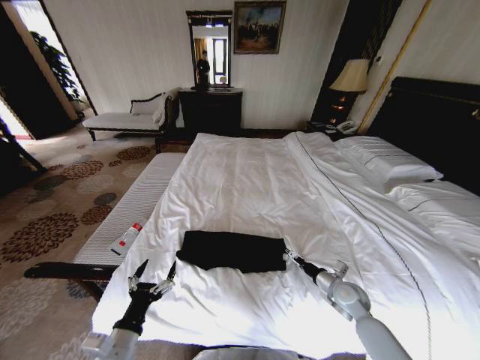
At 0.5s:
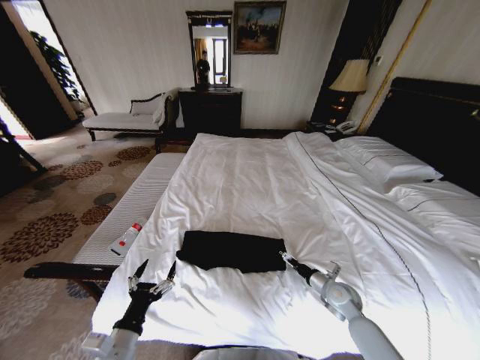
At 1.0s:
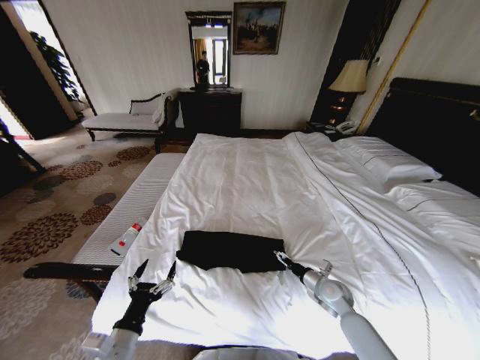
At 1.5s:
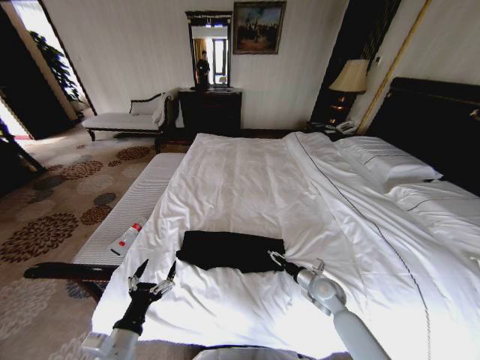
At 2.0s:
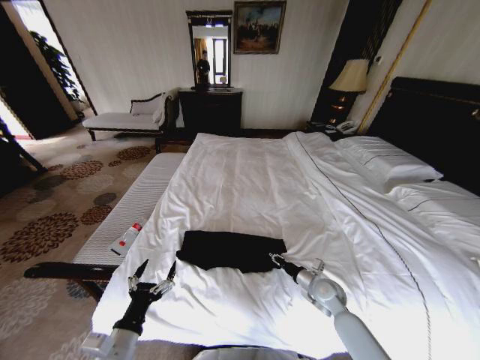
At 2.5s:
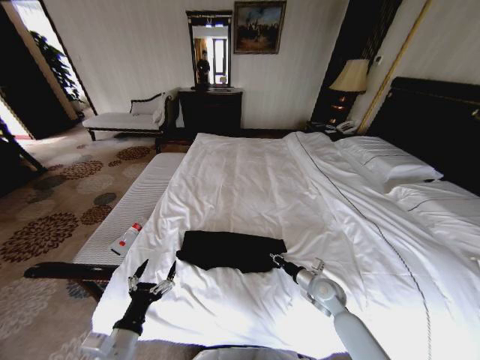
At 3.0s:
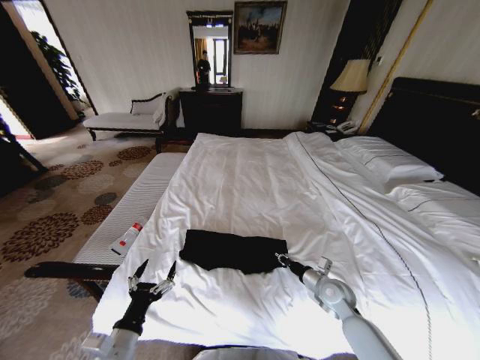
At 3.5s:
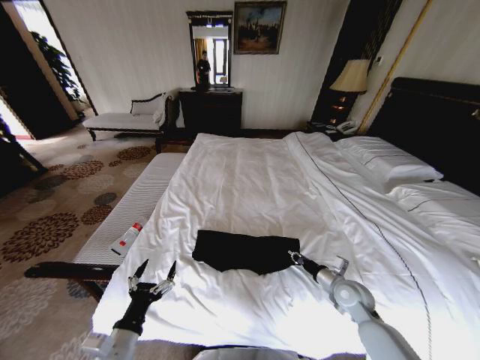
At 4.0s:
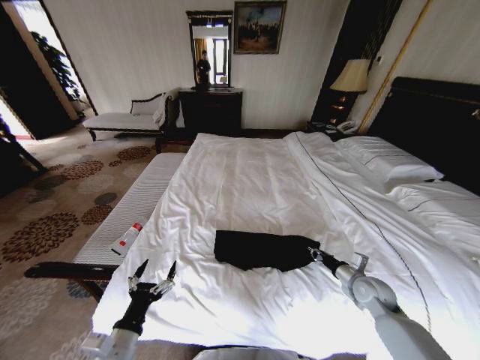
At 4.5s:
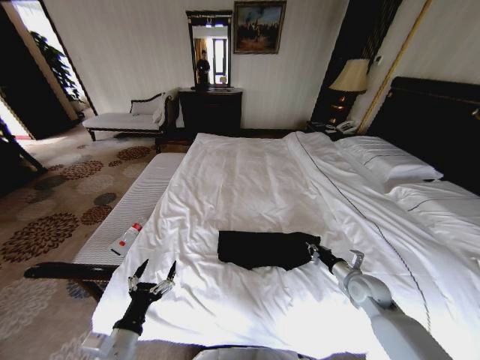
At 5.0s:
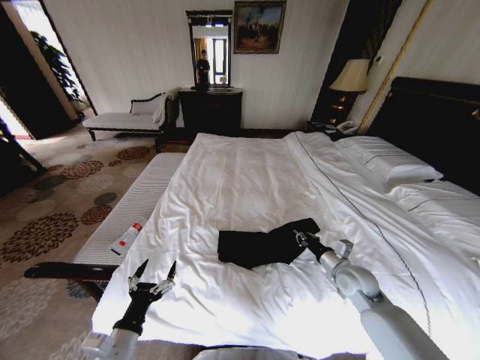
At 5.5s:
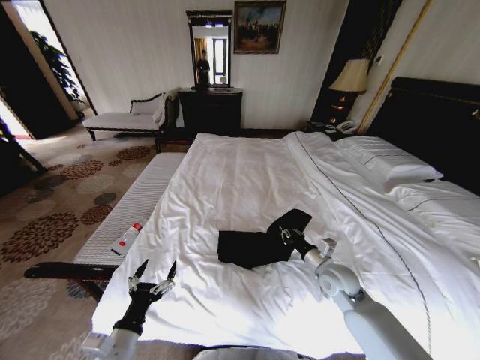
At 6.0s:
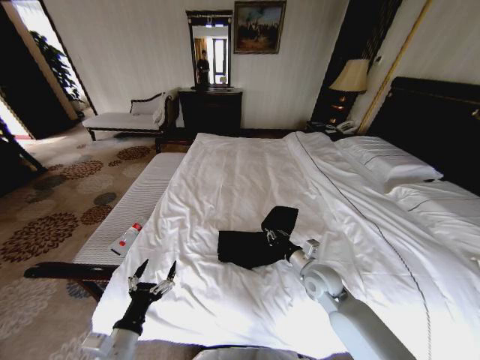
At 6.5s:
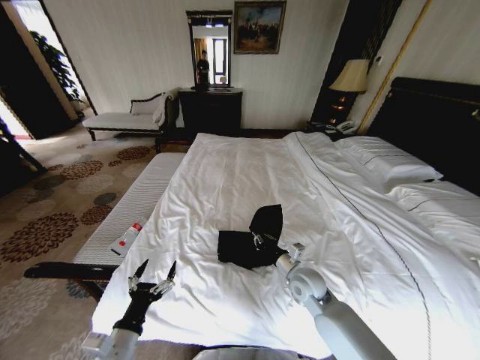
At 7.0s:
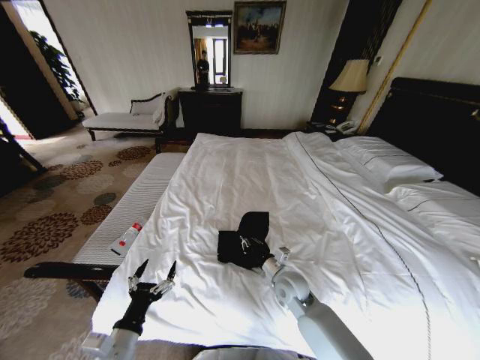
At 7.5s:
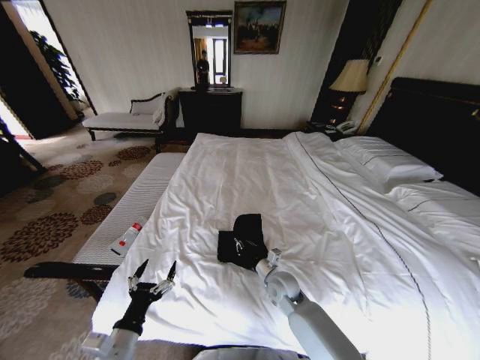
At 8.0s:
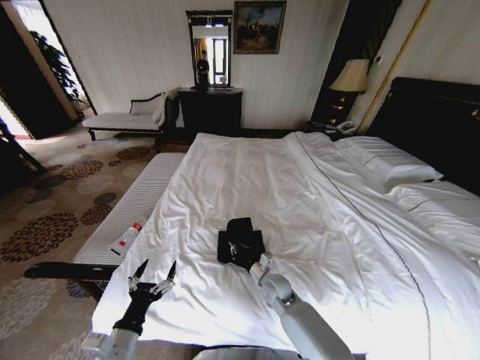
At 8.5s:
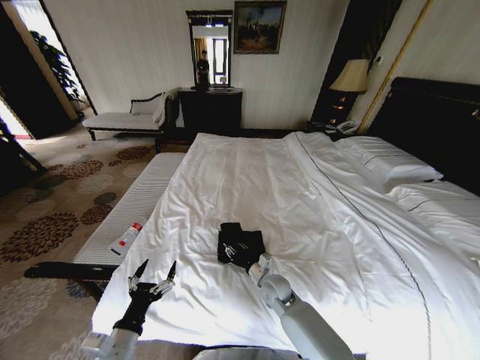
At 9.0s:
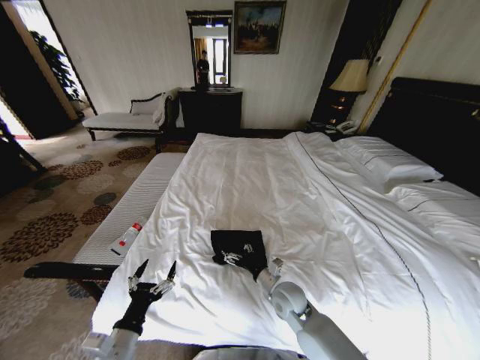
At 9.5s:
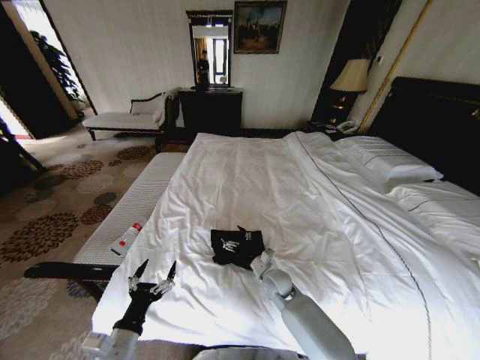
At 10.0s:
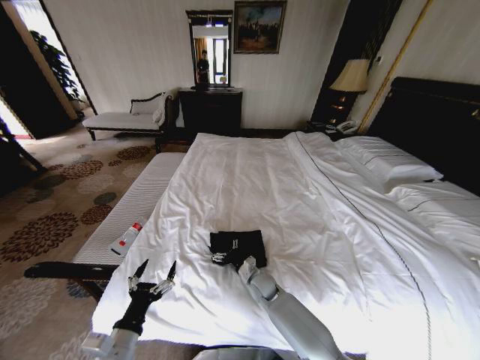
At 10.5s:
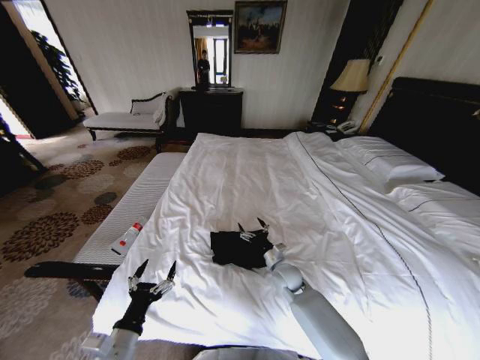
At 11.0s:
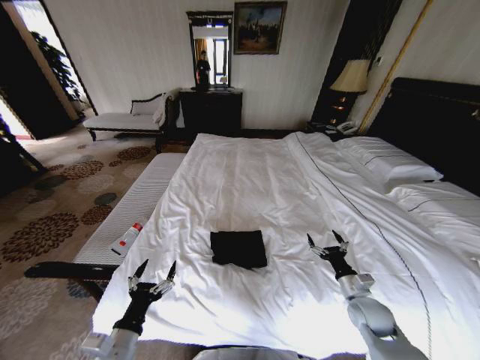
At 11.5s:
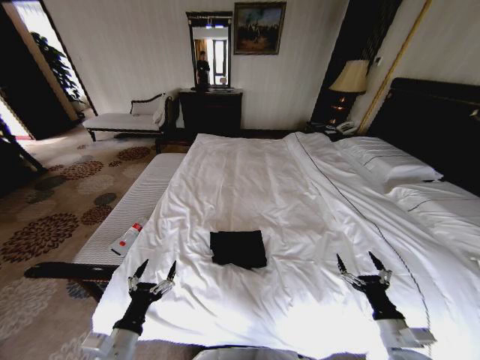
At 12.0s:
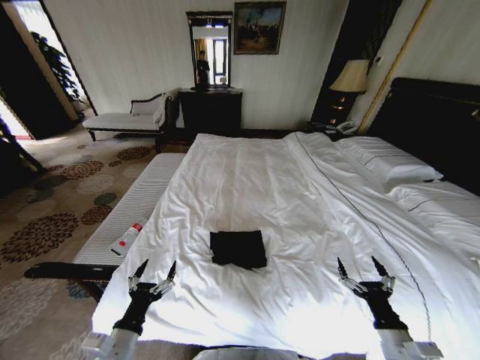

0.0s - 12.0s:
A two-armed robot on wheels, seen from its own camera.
Task of the whole recording: Fold the clothes on the bed.
0.0s - 2.0s: The right gripper travels to the left by about 5 cm, and closes.
2.0s - 4.0s: The right gripper travels to the right and upward by roughly 10 cm.
4.0s - 6.0s: The right gripper shifts some 15 cm to the left.
6.0s - 8.0s: The right gripper shifts roughly 15 cm to the left and downward.
8.0s - 10.0s: The right gripper shifts by approximately 5 cm, and opens its fingers.
10.0s - 12.0s: The right gripper is displaced to the right and backward by approximately 35 cm.

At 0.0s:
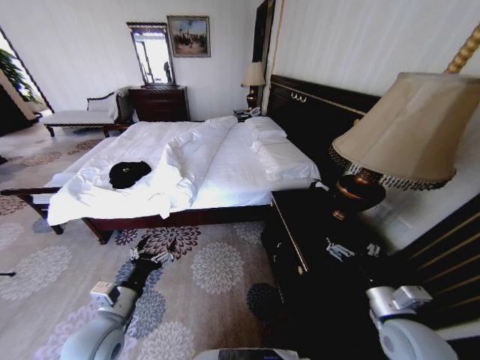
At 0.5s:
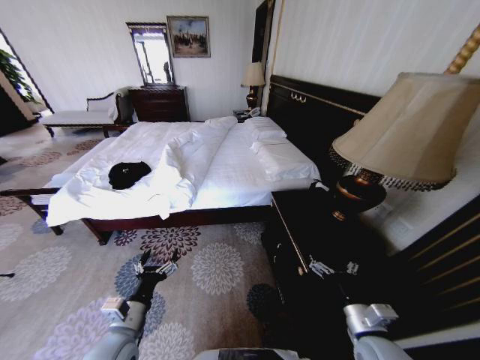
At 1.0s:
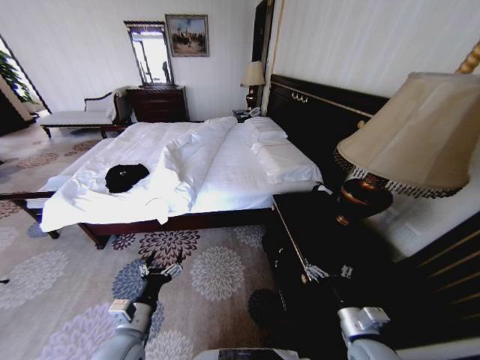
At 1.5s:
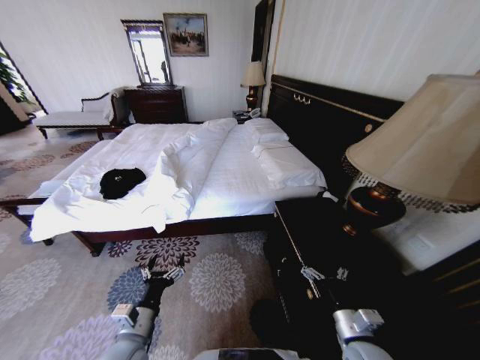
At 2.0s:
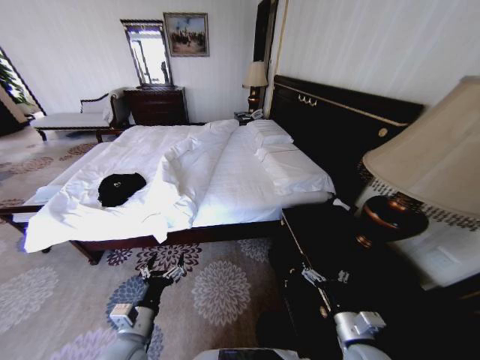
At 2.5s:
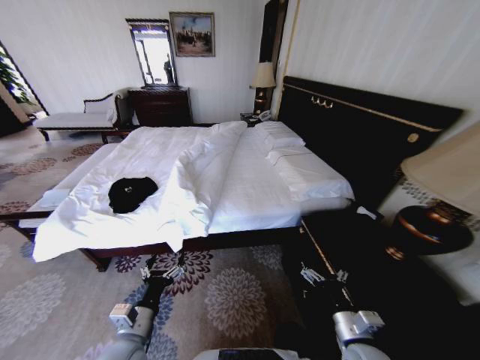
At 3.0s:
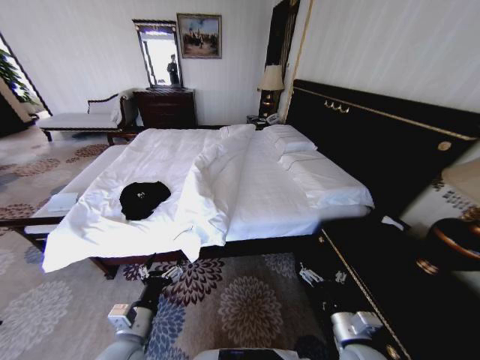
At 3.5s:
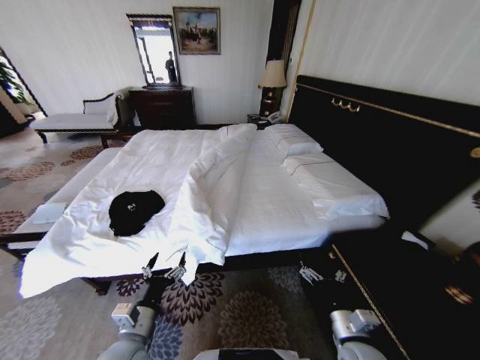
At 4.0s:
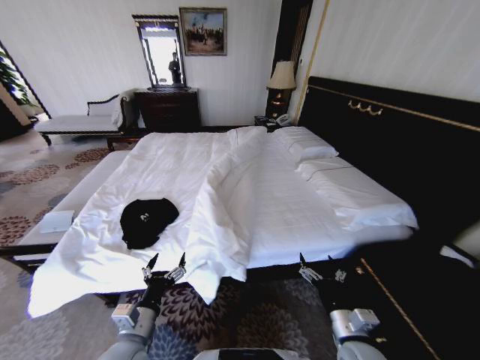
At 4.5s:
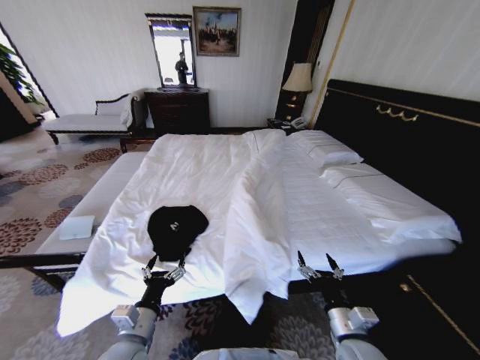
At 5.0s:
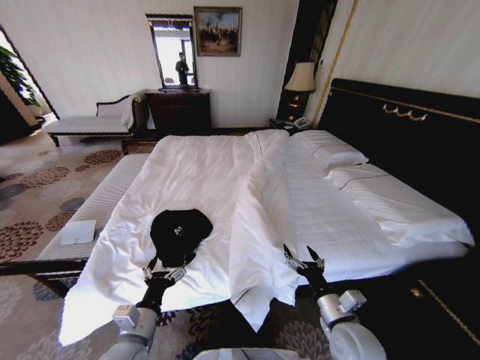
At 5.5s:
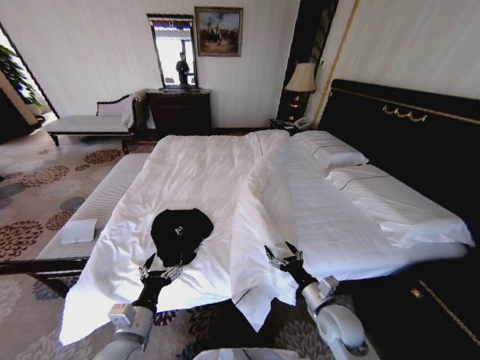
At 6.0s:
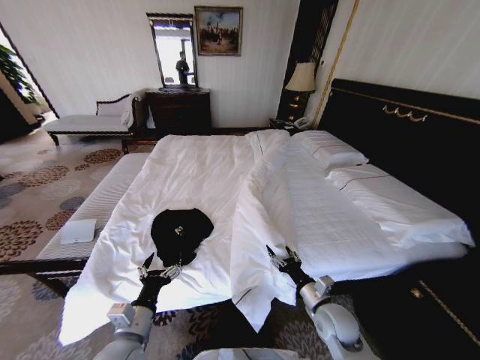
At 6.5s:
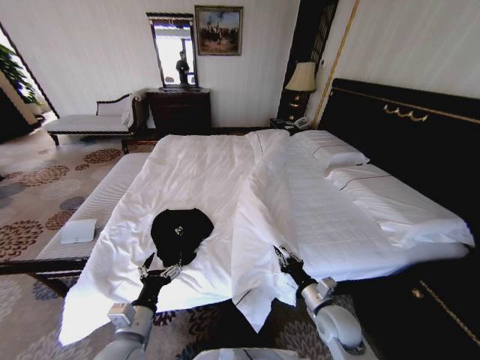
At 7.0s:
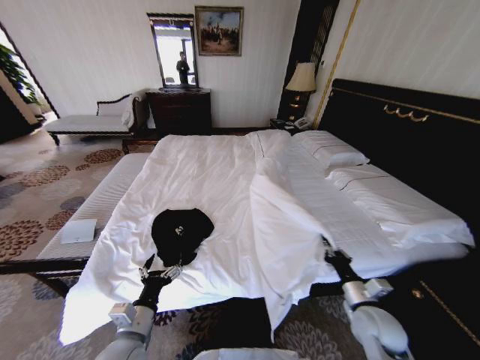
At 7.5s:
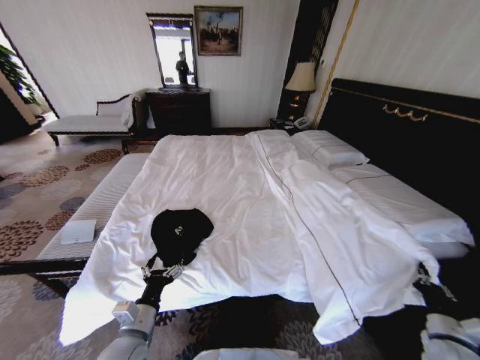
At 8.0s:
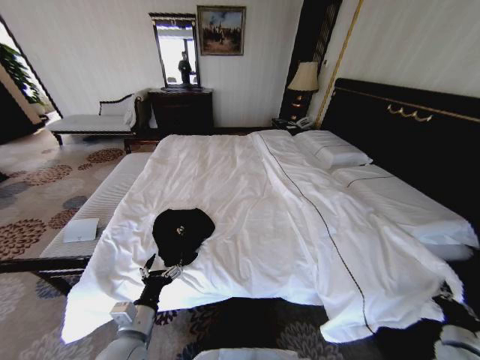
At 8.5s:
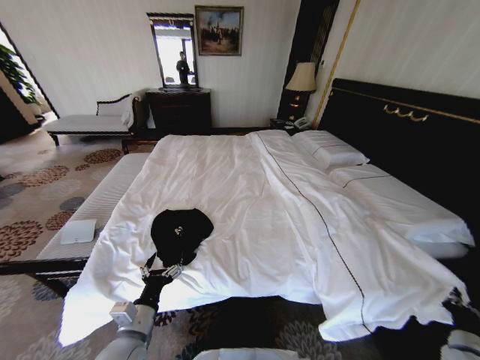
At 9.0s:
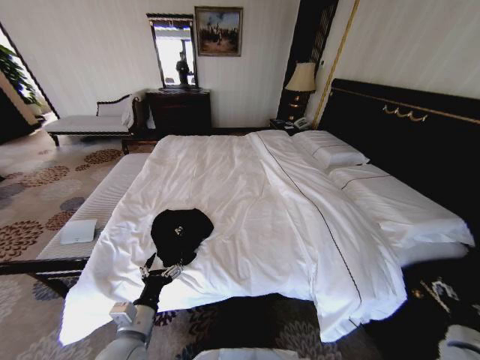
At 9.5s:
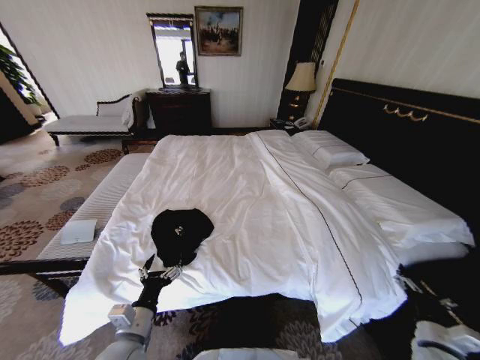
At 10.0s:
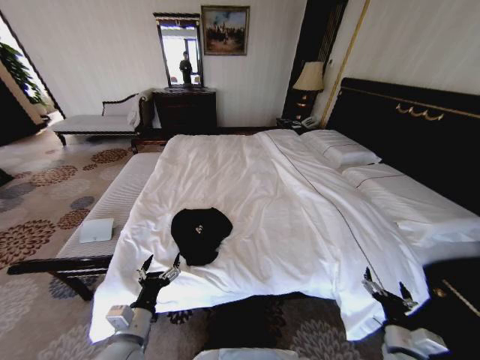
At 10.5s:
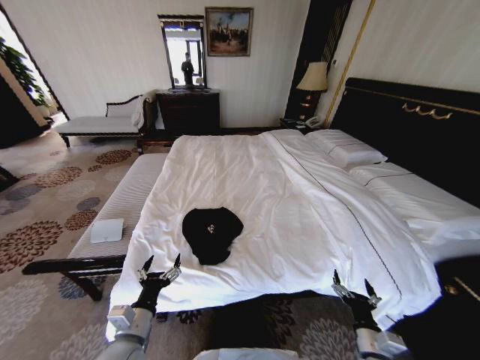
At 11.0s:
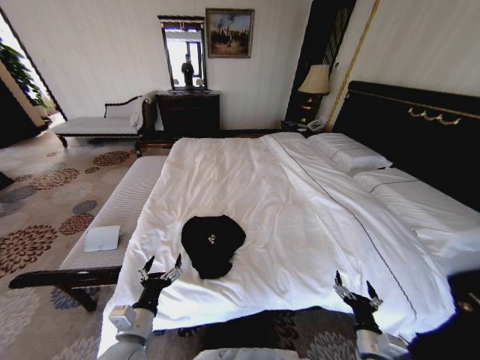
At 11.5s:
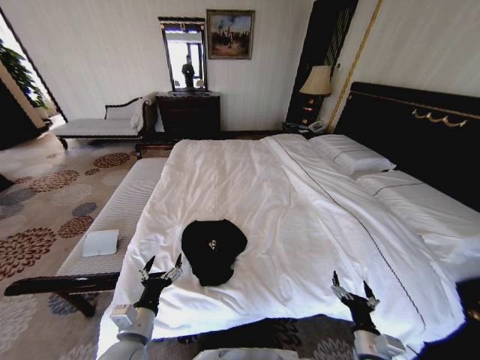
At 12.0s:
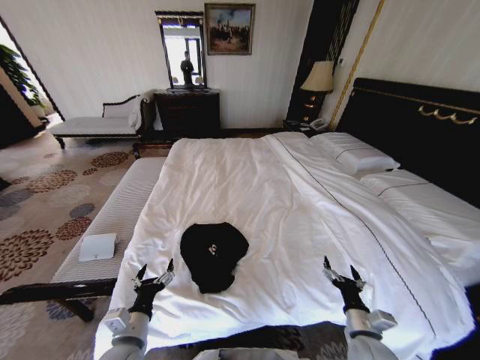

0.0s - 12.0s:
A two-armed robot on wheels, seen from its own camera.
Task of the whole recording: Fold the clothes on the bed.
4.0s - 6.0s: The right gripper heads forward, covering approximately 10 cm.
6.0s - 8.0s: The right gripper heads to the right, covering roughly 30 cm, and closes its fingers.
8.0s - 10.0s: The right gripper is displaced to the left by roughly 15 cm, and opens its fingers.
10.0s - 12.0s: The right gripper is displaced to the left by about 5 cm.

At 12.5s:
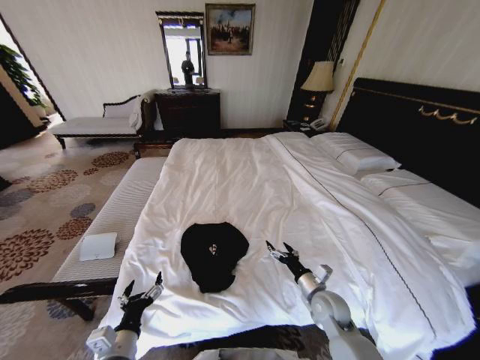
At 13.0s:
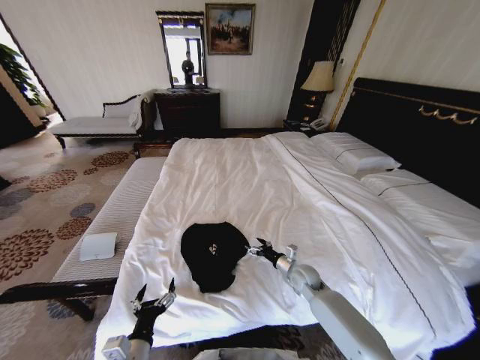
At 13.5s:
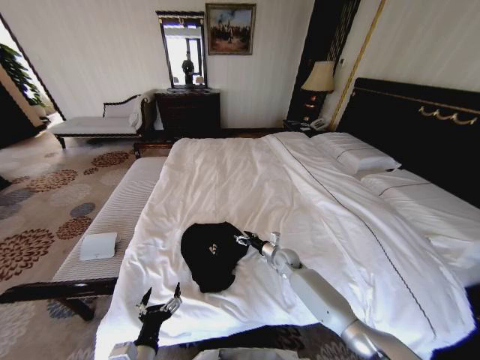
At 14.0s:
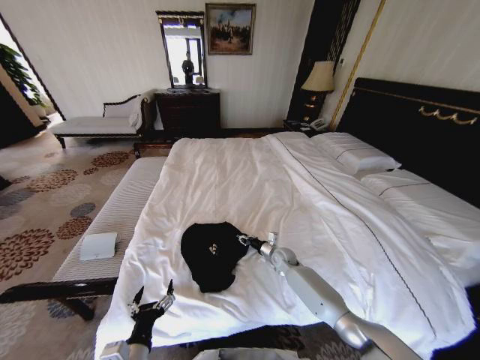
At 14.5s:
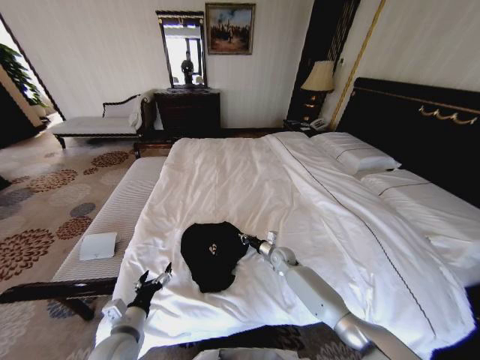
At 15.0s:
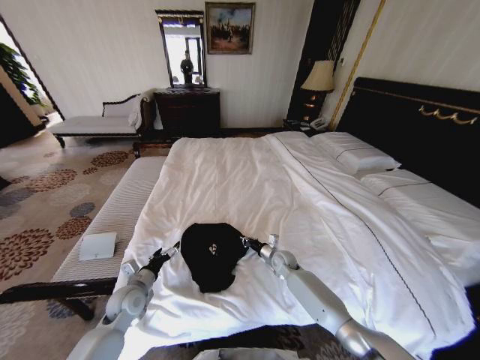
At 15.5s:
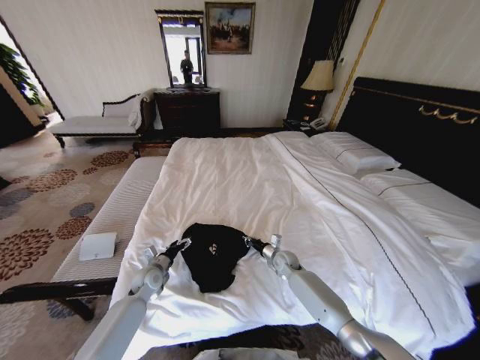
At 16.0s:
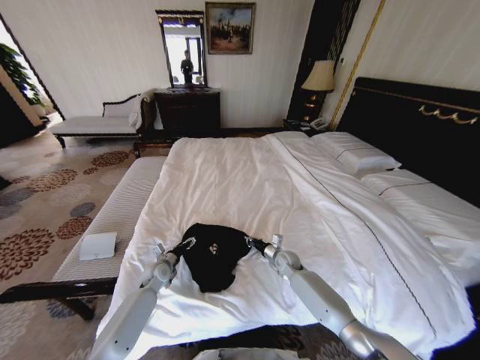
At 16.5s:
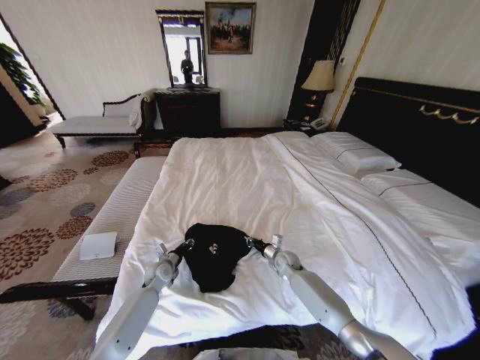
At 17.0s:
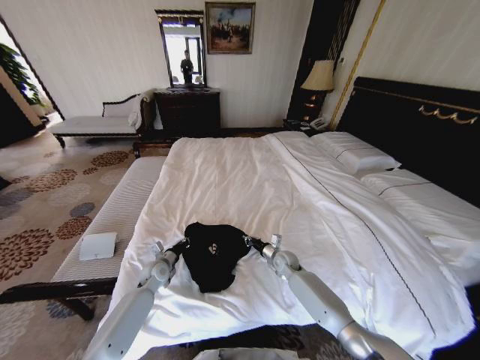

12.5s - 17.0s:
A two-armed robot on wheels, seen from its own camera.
Task of the whole recording: Fold the clothes on the bed.
12.5s - 14.5s: The left gripper moves forward, some 5 cm. The right gripper moves forward, roughly 20 cm, and closes.
14.5s - 17.0s: The left gripper heads forward, covering some 20 cm, and closes its fingers.
